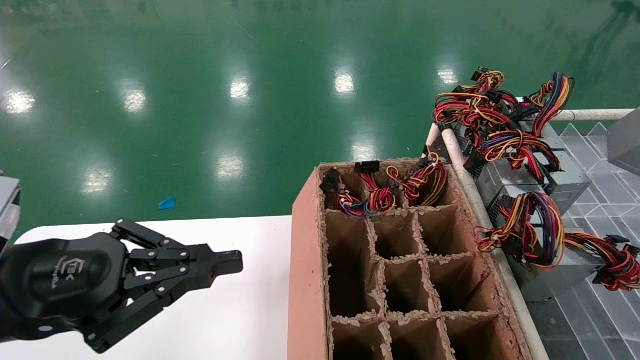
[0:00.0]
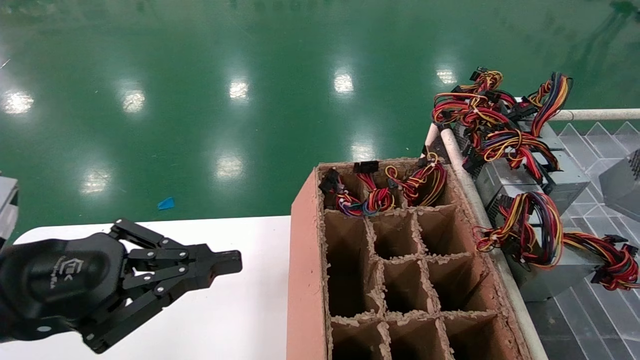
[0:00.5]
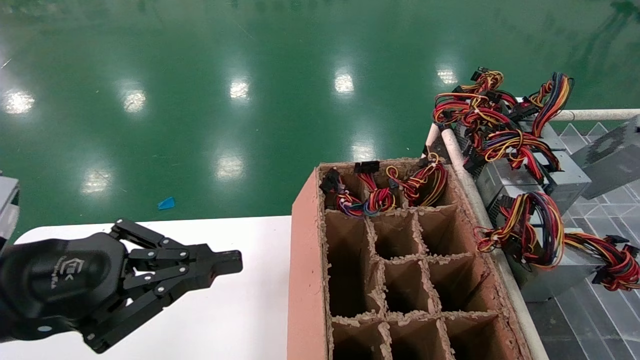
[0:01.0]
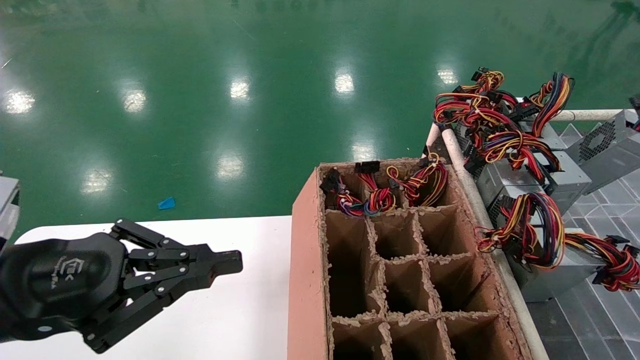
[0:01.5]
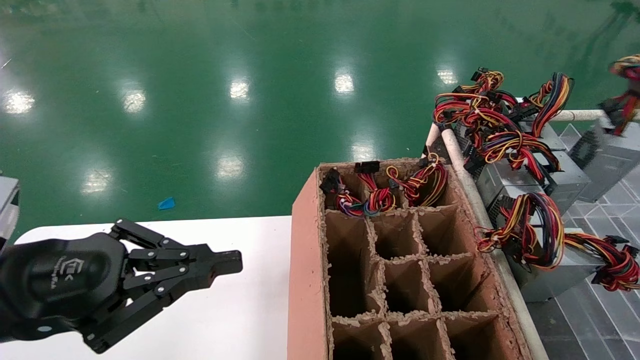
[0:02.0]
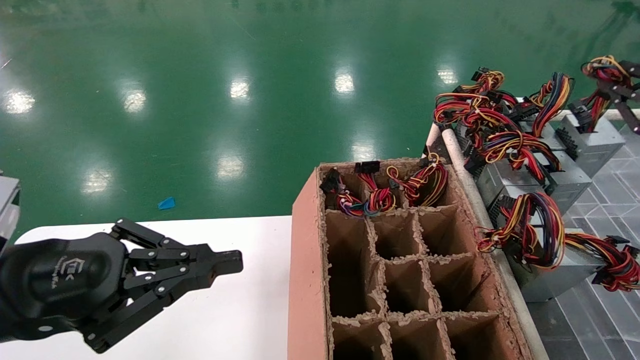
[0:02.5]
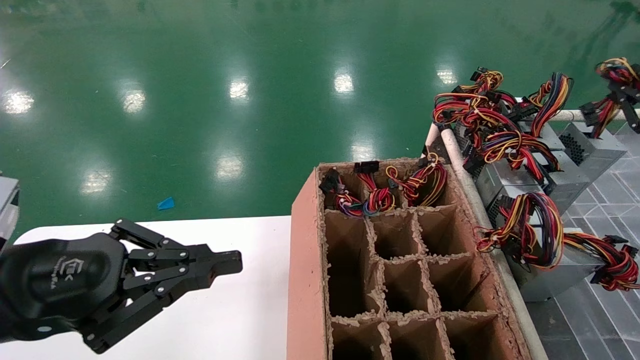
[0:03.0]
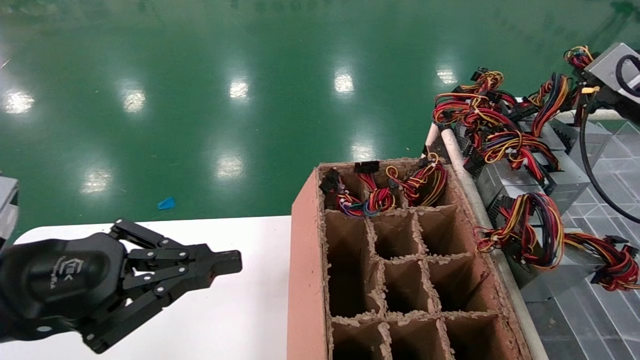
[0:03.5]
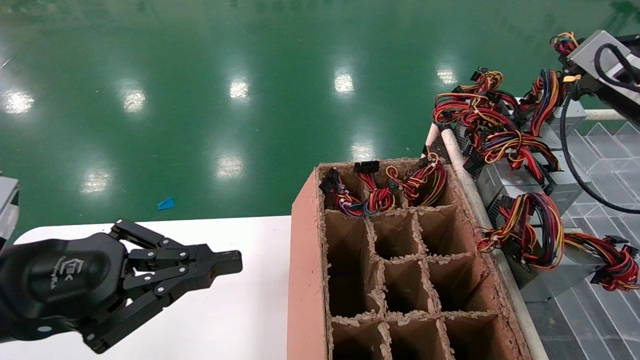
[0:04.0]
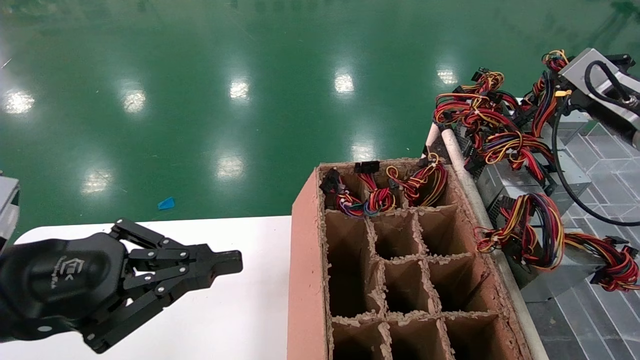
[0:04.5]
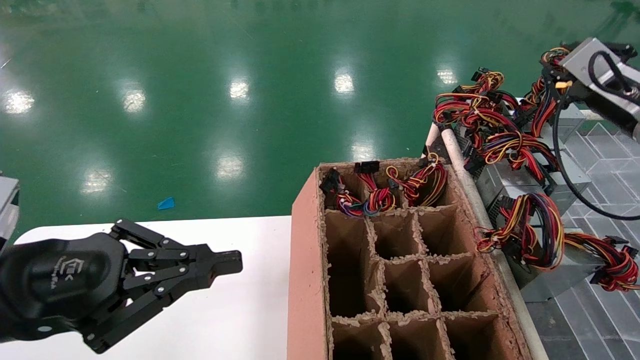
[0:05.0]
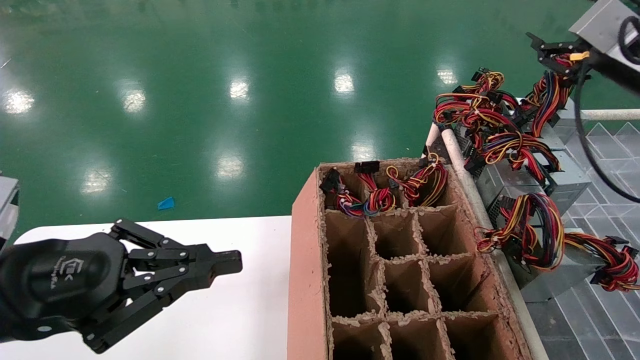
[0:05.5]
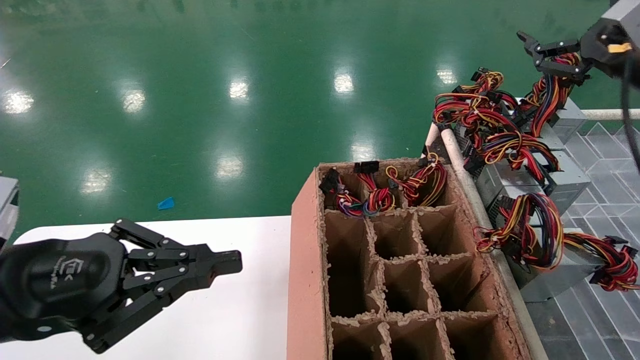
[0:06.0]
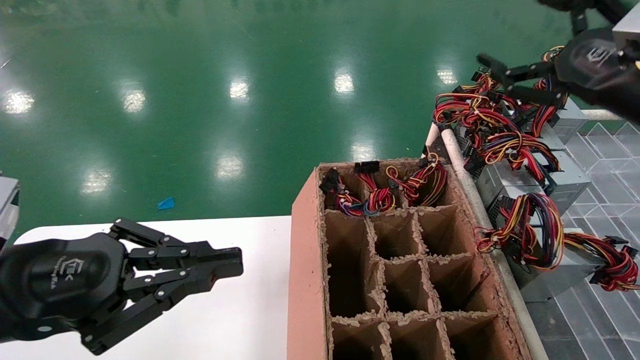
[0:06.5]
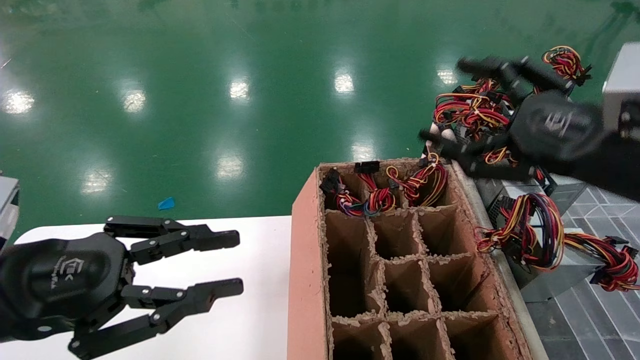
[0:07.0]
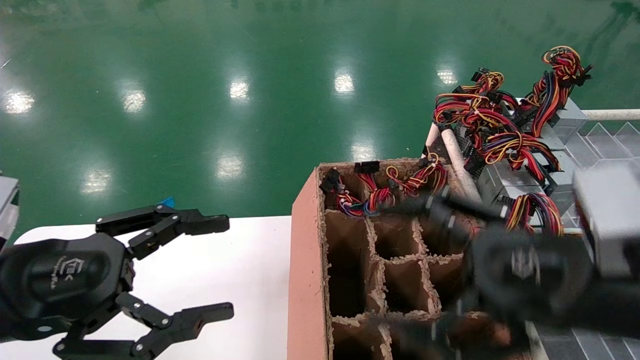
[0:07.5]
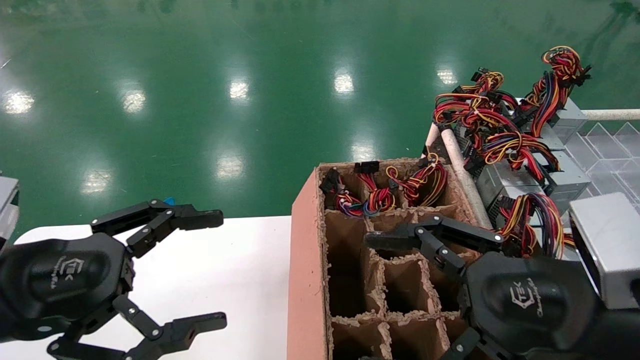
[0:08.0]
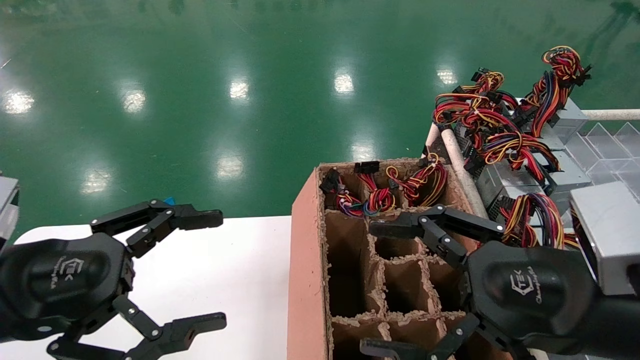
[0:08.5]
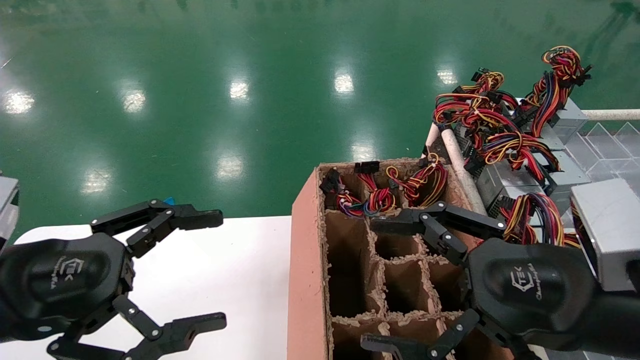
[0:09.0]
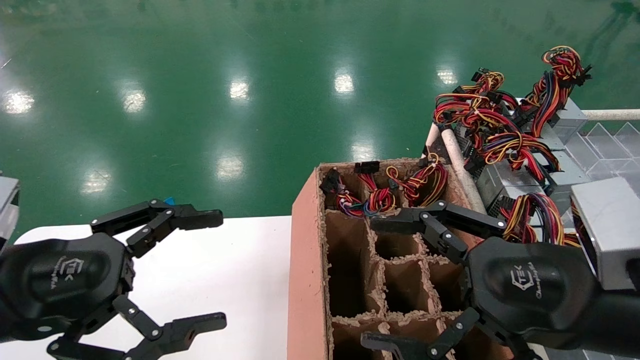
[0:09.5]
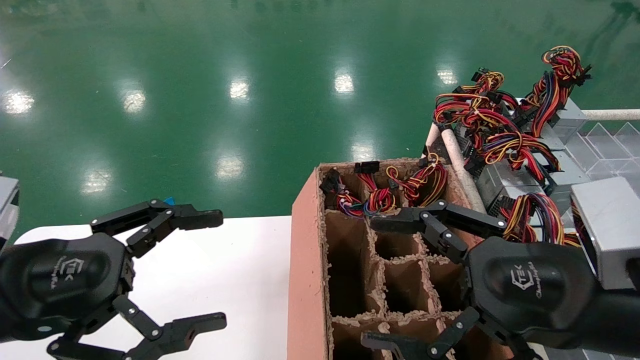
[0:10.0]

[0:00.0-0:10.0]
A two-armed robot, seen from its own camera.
Step, 0:00.0 to 0:05.5: Place the main unit power supply in the designated area.
0:00.0 to 0:02.0: The right gripper goes some 15 cm forward.
0:02.0 to 0:04.0: The right gripper is displaced forward and to the left by roughly 15 cm.
0:04.0 to 0:06.0: The right gripper heads backward, covering approximately 5 cm, and opens its fingers.
0:06.0 to 0:08.0: The right gripper is displaced backward, to the left and downward by some 30 cm. The left gripper opens up.
0:08.0 to 0:10.0: The two grippers keep their place.
